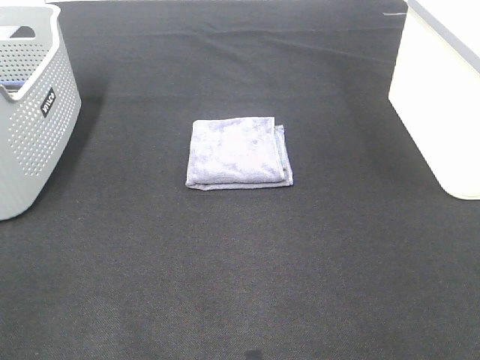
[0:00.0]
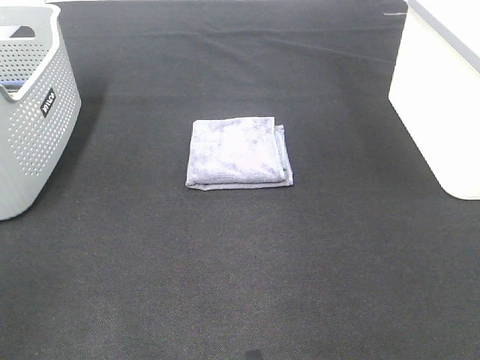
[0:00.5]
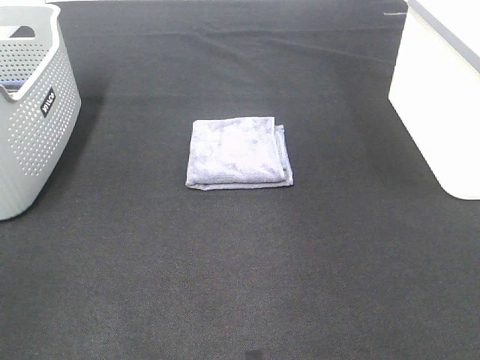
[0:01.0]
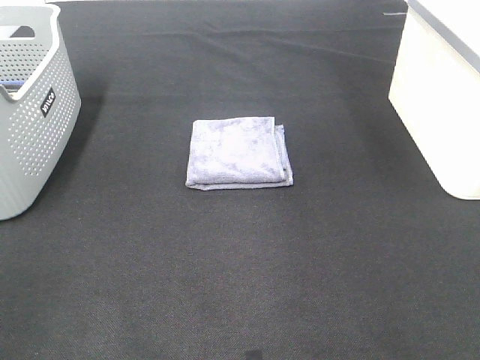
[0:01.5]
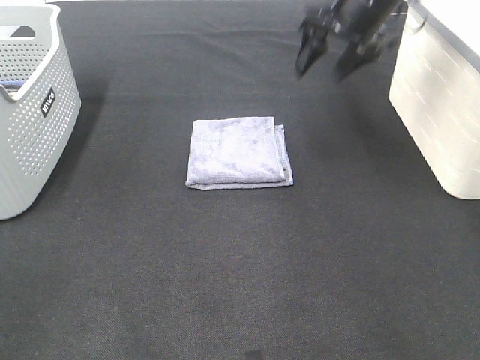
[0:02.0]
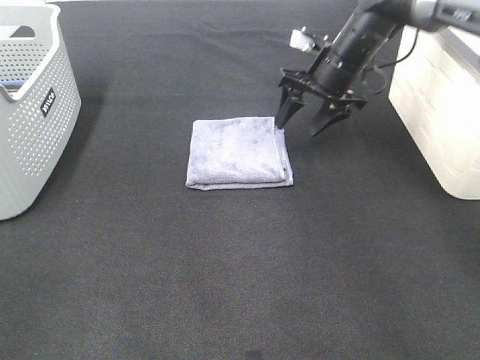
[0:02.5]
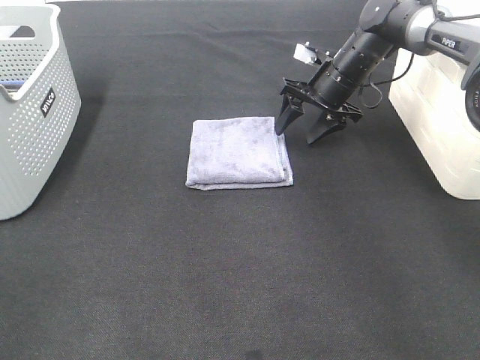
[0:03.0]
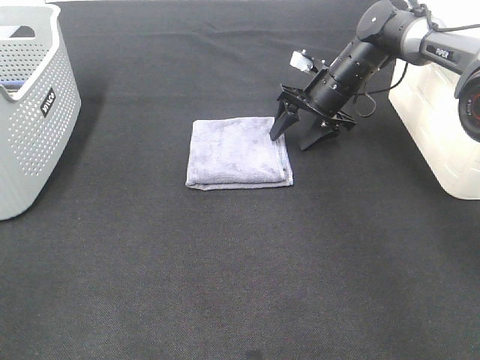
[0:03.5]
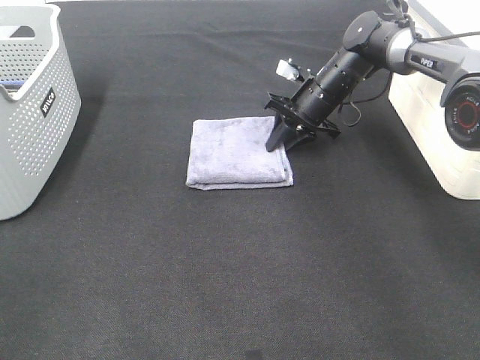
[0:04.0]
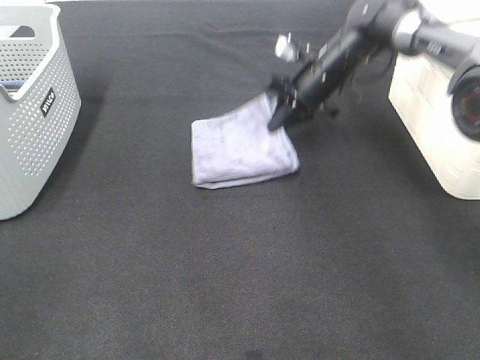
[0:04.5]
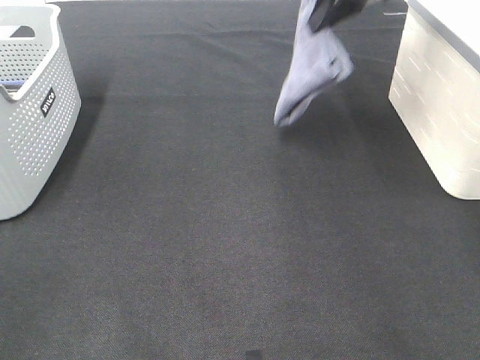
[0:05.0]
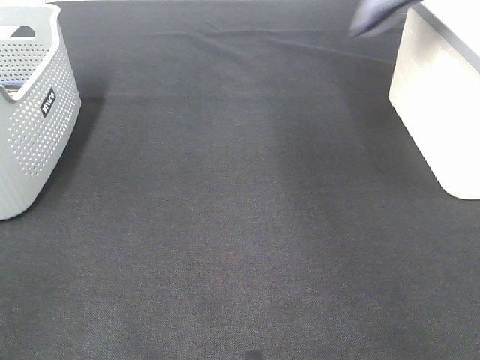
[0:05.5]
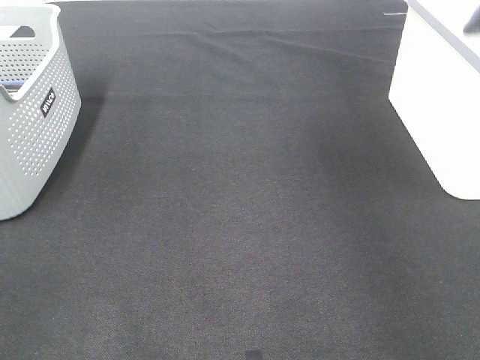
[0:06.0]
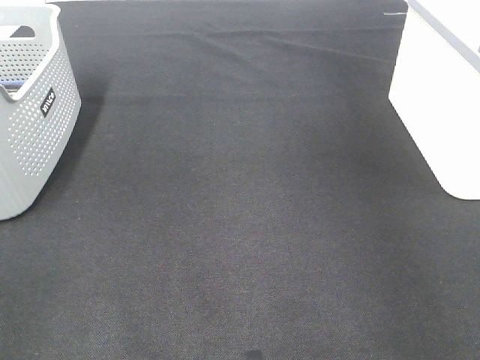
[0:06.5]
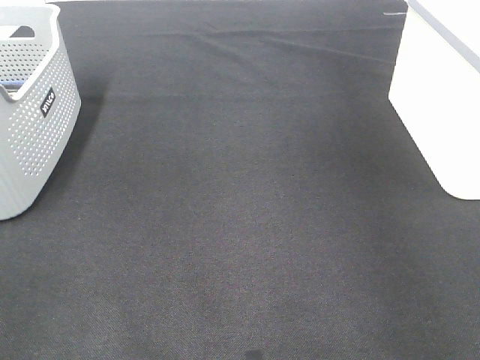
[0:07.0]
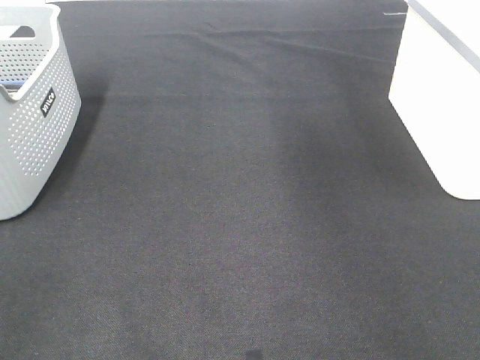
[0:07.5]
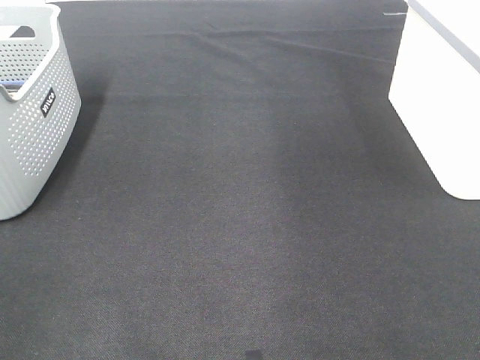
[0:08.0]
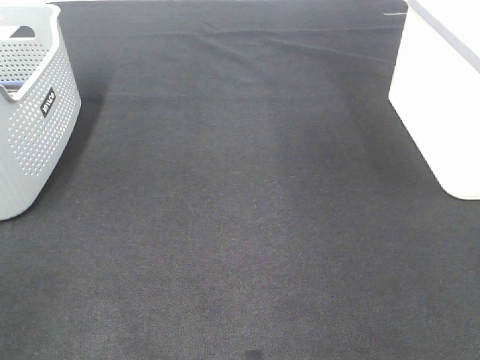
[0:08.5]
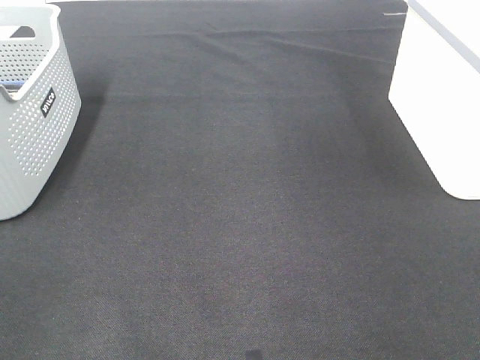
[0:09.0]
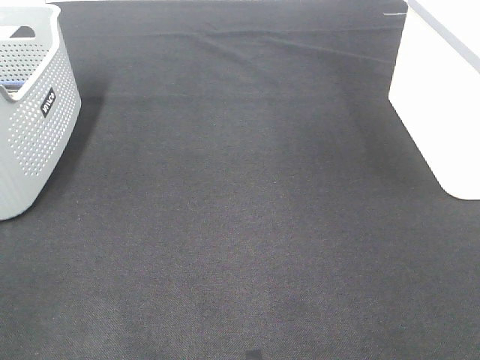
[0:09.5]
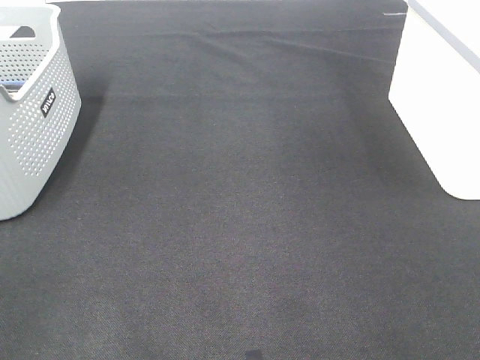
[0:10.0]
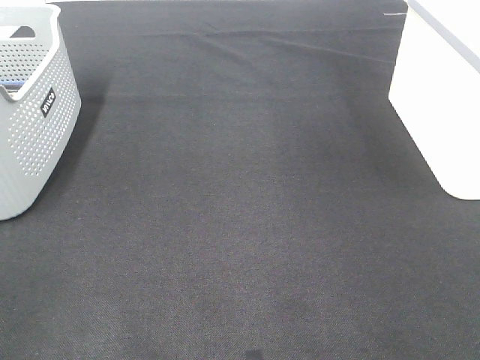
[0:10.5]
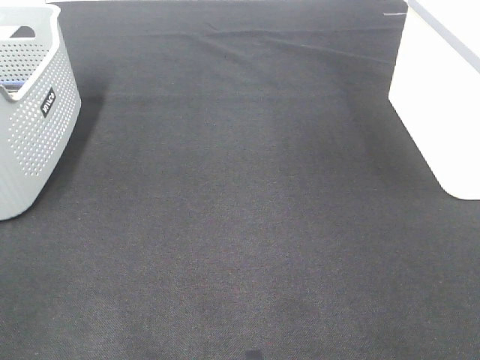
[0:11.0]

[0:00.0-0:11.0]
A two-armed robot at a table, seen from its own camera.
Step, 0:00.0 to 0:04.0: Right hand: grab the folded grey towel.
Step, 0:04.5 to 0:06.5: Right hand: place the grey towel in right basket.
0:00.0 to 0:02.0: The right gripper moves forward, some 40 cm.
0:02.0 to 0:03.5: The right gripper moves downward, some 15 cm.
0:03.5 to 0:05.5: The right gripper goes about 35 cm upward, and closes its fingers.
0:05.5 to 0:07.5: The right gripper moves approximately 10 cm to the right and comes back, and opens its fingers.

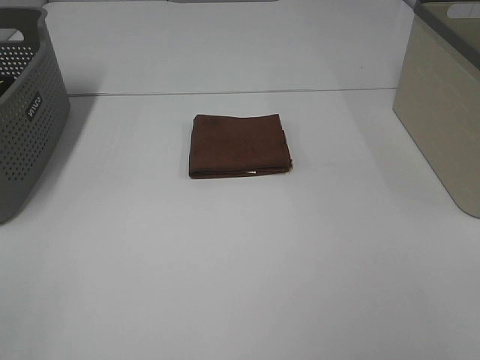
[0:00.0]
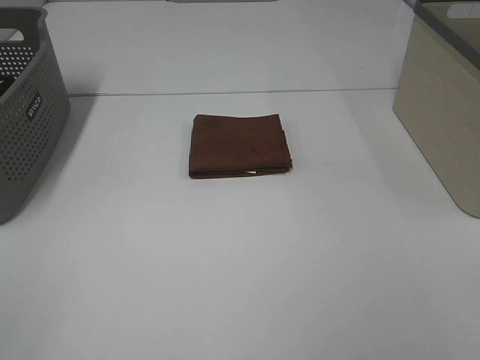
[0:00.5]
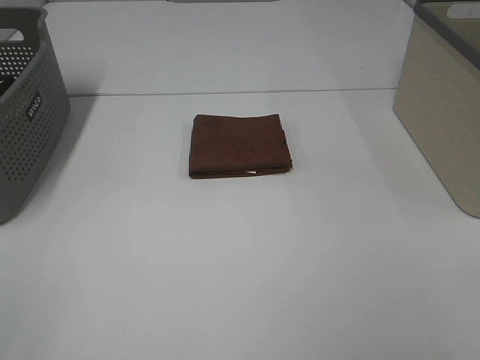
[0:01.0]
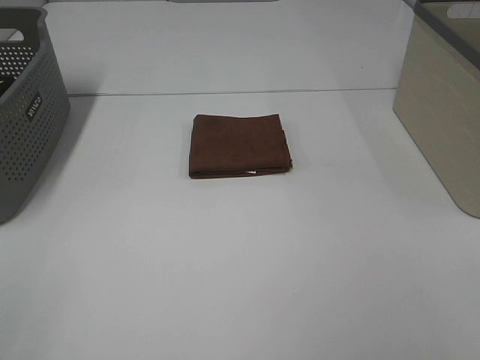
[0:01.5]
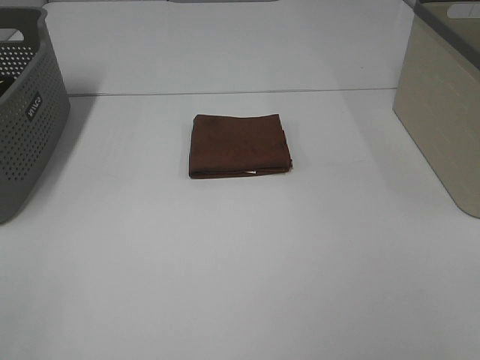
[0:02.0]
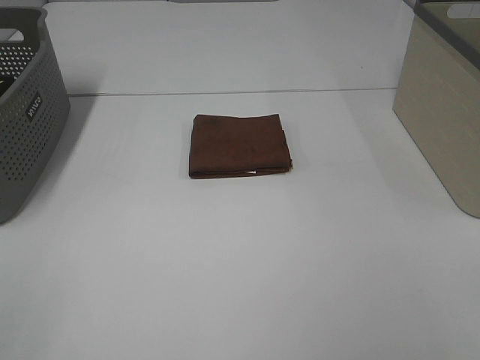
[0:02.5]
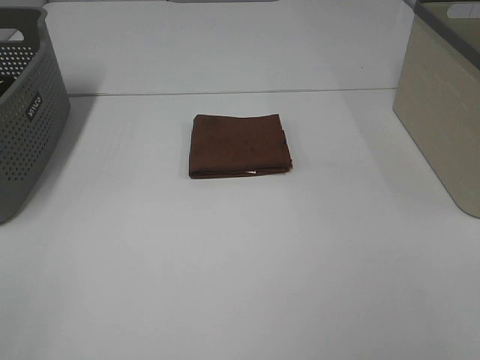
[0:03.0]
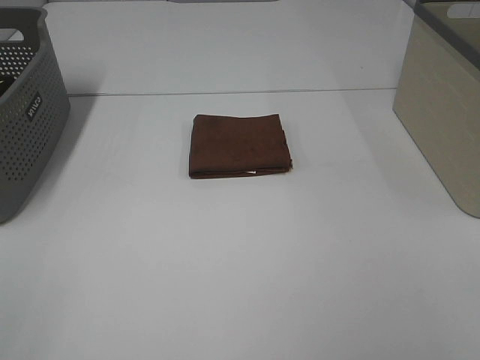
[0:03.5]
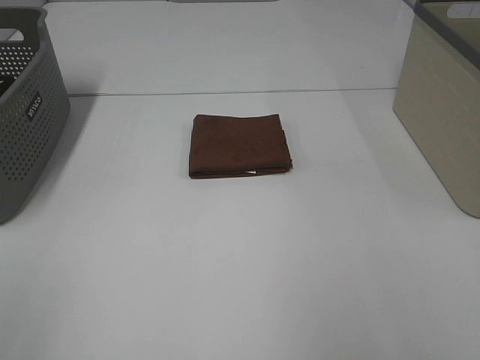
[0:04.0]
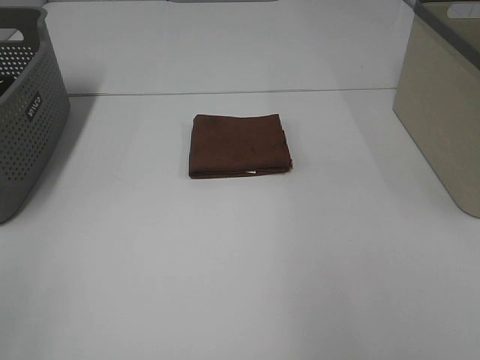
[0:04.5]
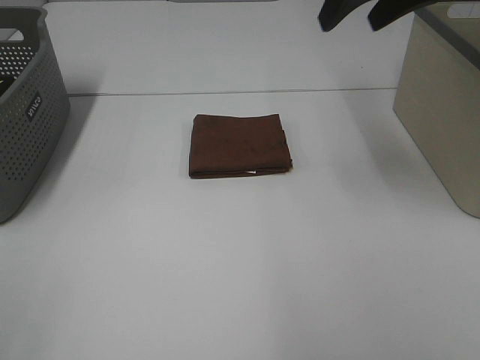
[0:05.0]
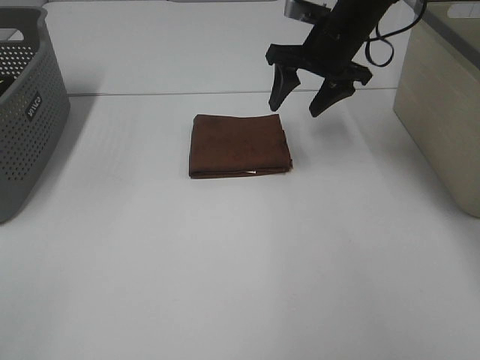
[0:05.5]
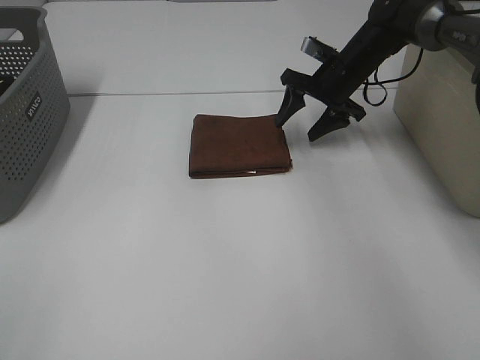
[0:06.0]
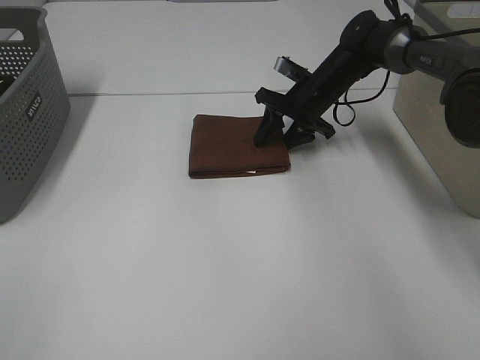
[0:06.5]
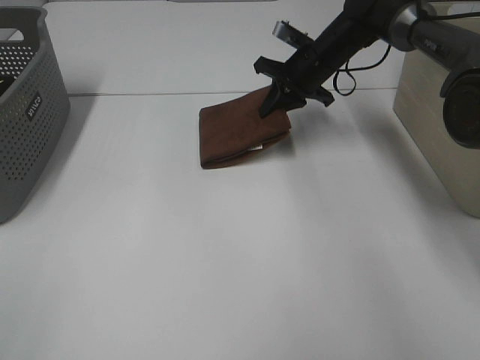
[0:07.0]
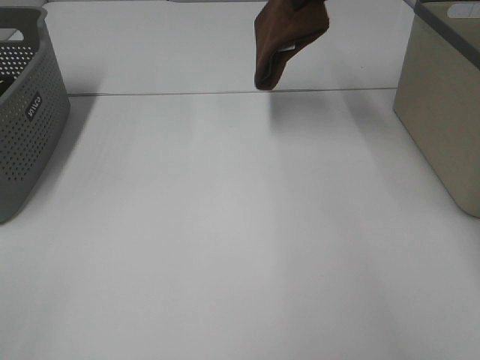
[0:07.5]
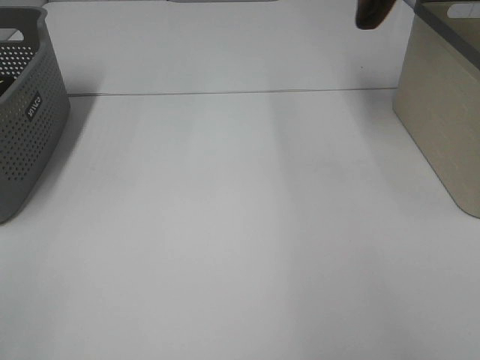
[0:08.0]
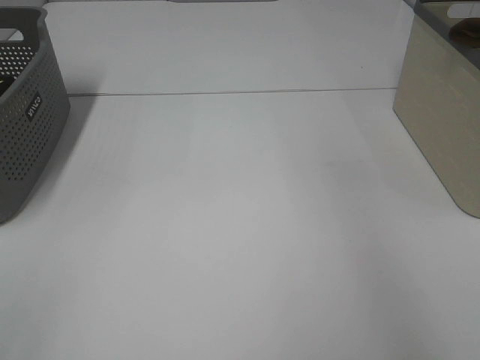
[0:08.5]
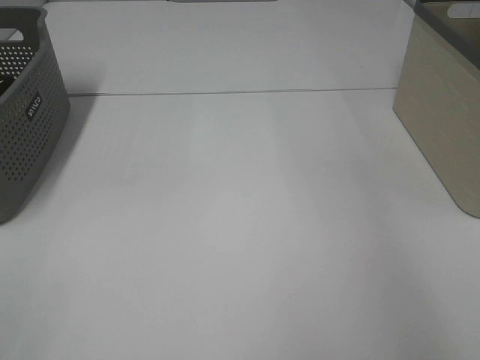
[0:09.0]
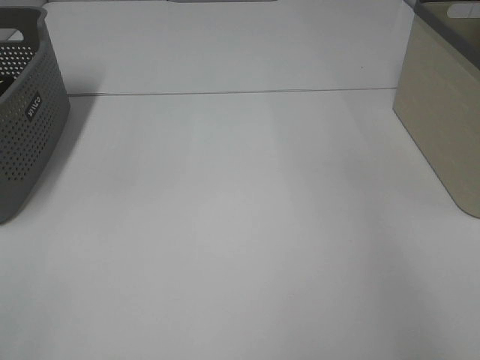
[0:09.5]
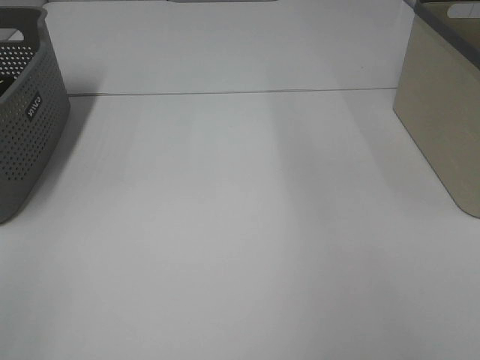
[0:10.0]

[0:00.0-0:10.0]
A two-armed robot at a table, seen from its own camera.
Step, 0:00.0 to 0:06.5: Right hand: grab the folded brown towel.
Step, 0:07.0 to 0:09.0: Right hand: place the brown towel in right basket.
0:00.0 to 0:02.0: Neither gripper changes place.
0:04.0 to 0:06.0: The right gripper goes roughly 50 cm forward and downward.
0:06.0 to 0:08.0: The right gripper heads upward, covering about 30 cm, and closes its fingers.
0:08.0 to 0:10.0: The right gripper reaches about 15 cm to the right, then returns, and opens up.

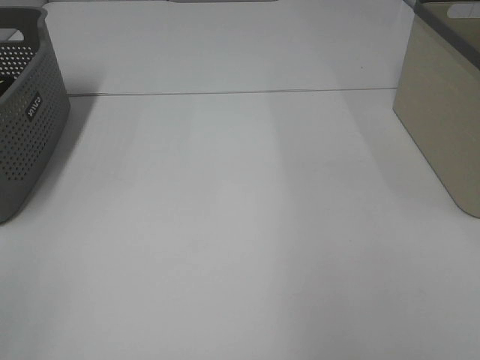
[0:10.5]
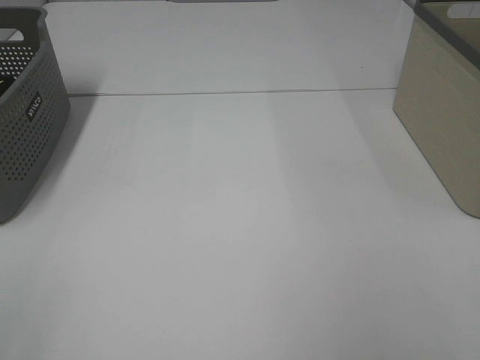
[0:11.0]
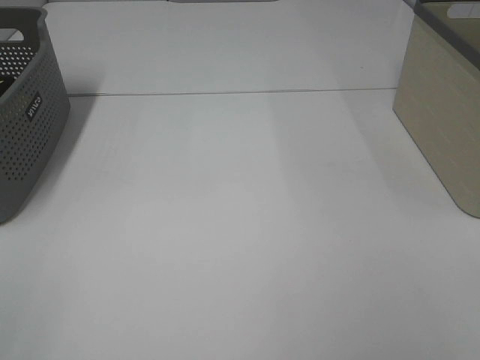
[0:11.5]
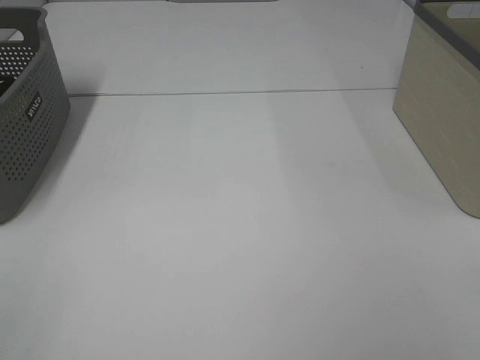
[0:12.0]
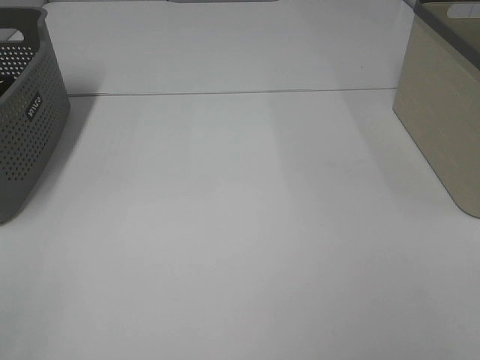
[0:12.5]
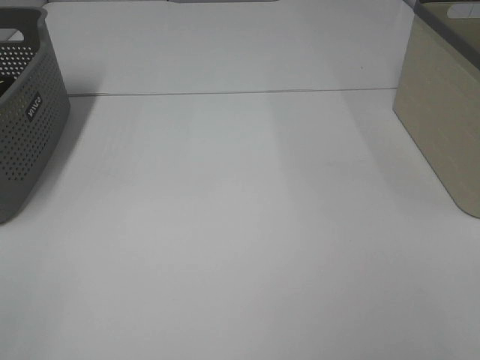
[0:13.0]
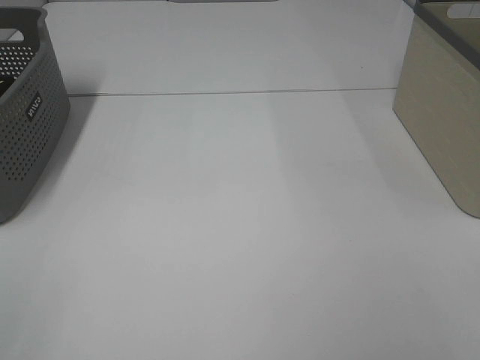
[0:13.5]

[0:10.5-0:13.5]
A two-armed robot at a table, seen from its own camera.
0:12.0 to 0:13.5: The two grippers keep their place.

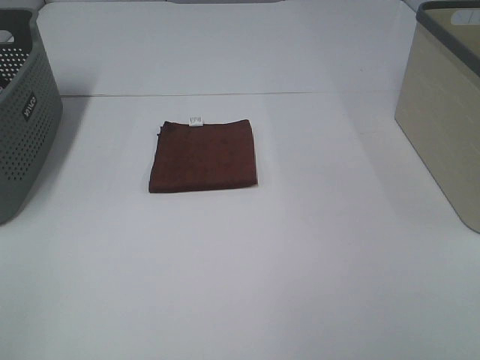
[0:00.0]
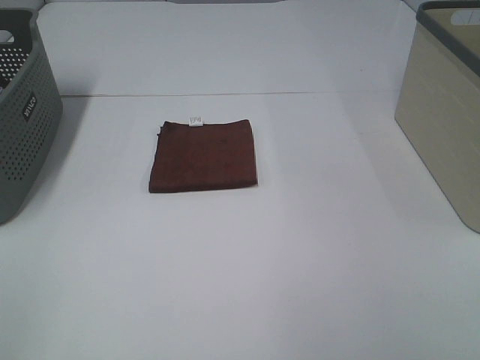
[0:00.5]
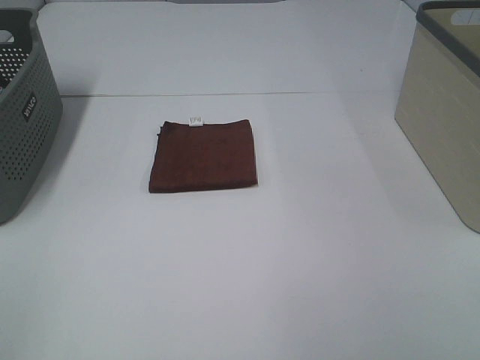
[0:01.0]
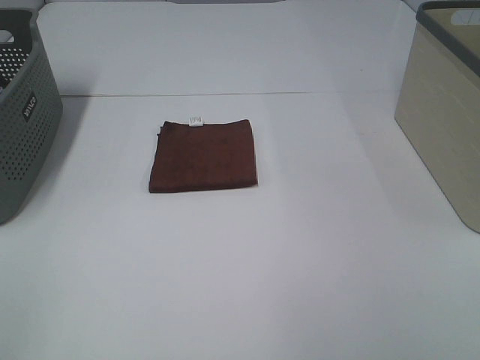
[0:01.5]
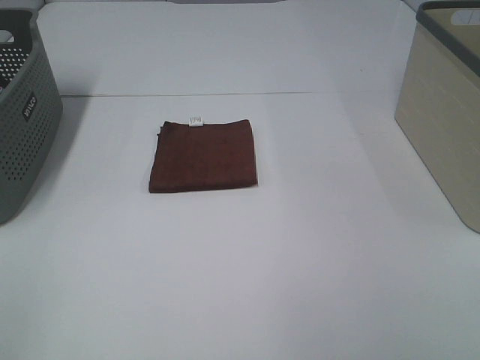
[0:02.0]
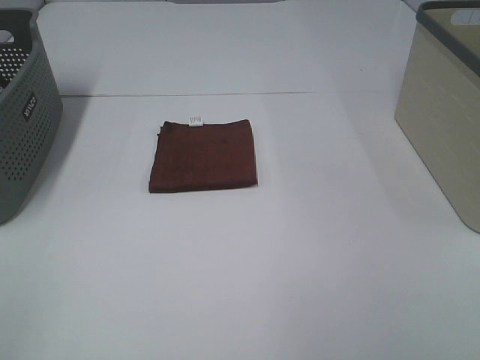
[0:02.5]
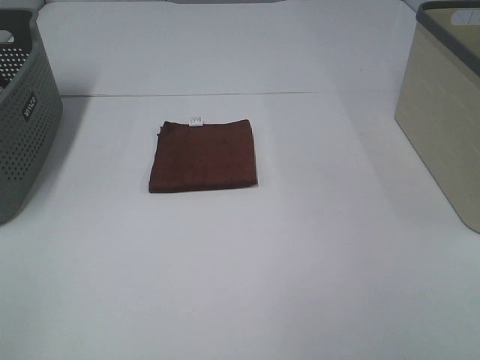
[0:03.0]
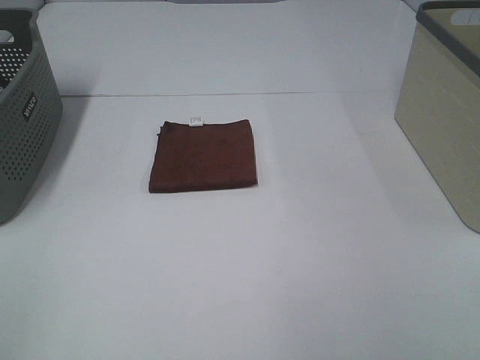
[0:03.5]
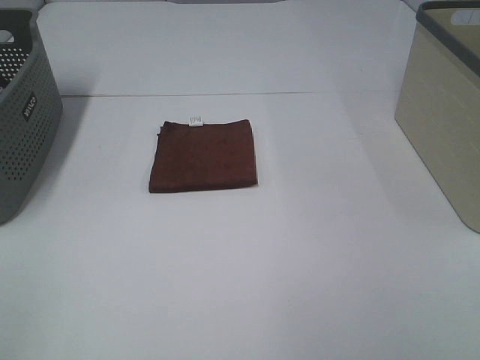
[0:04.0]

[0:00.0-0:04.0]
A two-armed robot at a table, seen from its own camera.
0:00.0 to 0:04.0: Both grippers stay put.
